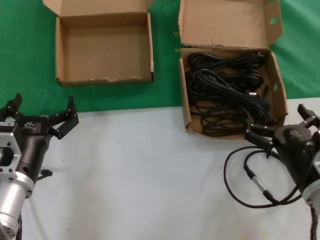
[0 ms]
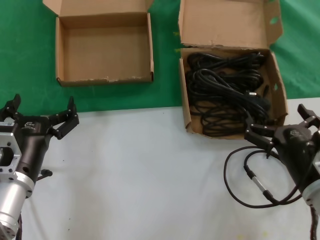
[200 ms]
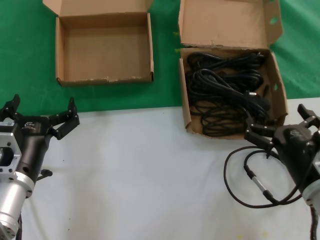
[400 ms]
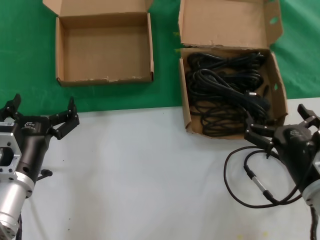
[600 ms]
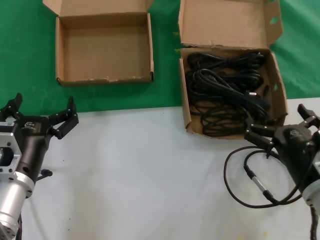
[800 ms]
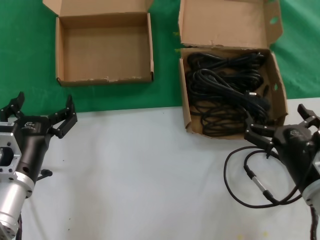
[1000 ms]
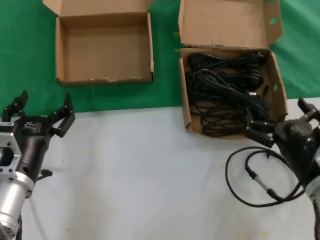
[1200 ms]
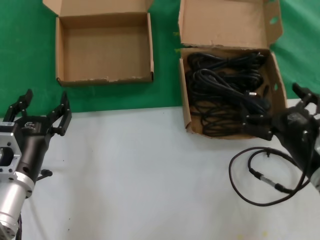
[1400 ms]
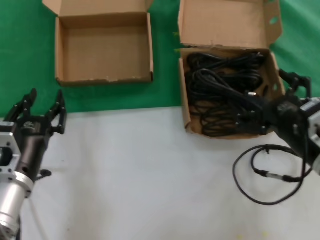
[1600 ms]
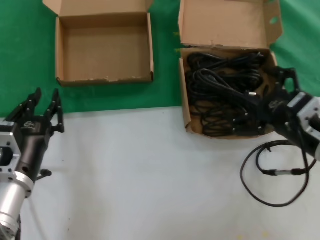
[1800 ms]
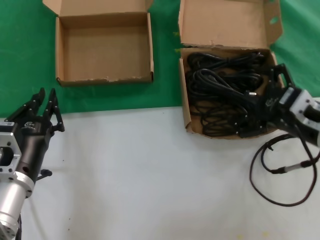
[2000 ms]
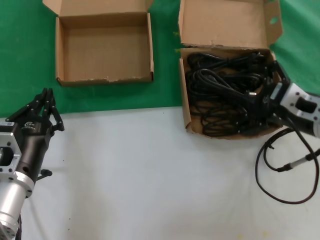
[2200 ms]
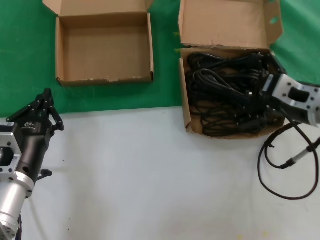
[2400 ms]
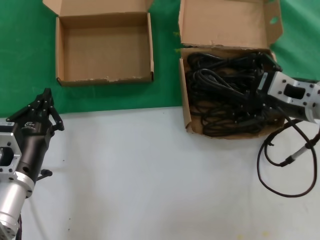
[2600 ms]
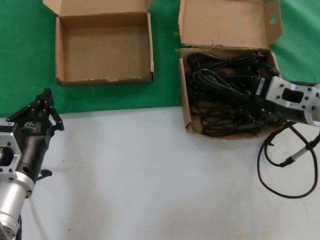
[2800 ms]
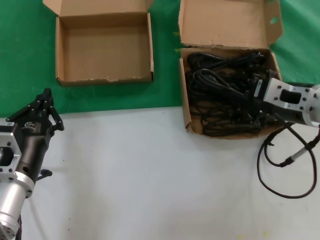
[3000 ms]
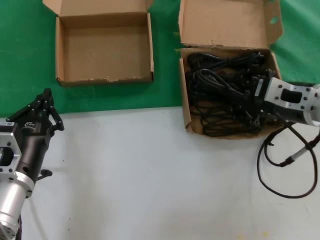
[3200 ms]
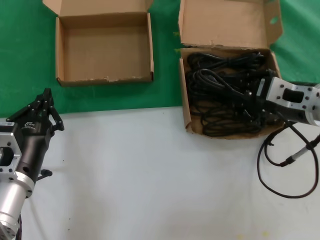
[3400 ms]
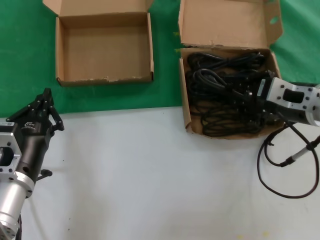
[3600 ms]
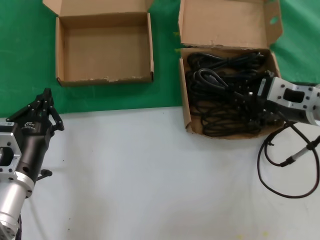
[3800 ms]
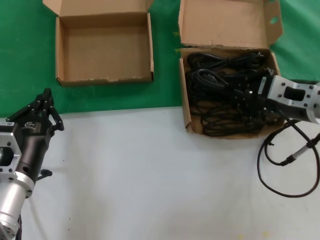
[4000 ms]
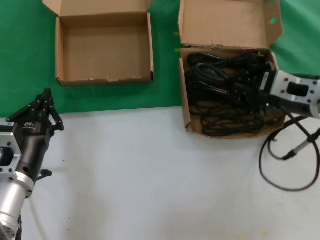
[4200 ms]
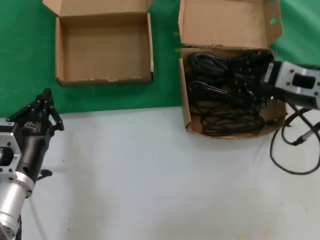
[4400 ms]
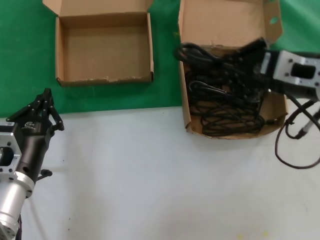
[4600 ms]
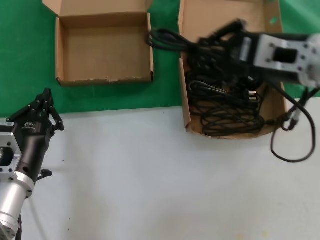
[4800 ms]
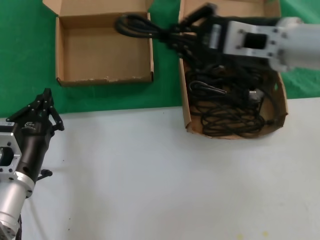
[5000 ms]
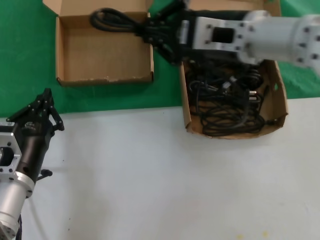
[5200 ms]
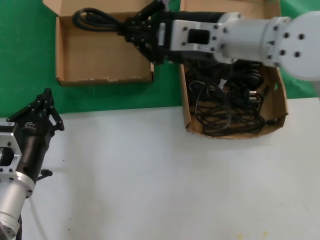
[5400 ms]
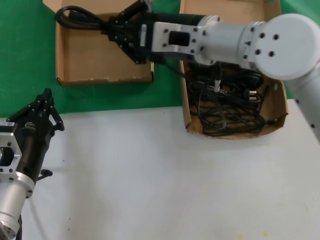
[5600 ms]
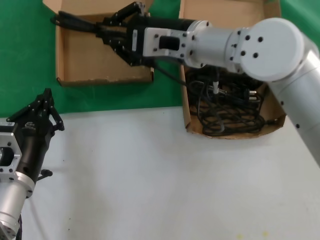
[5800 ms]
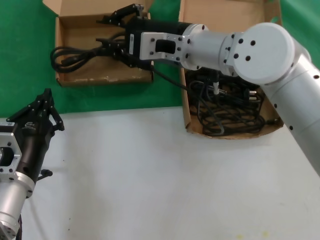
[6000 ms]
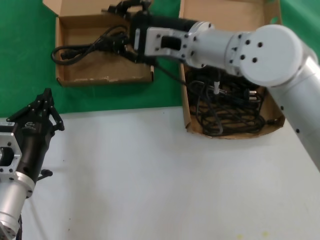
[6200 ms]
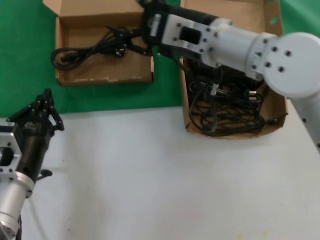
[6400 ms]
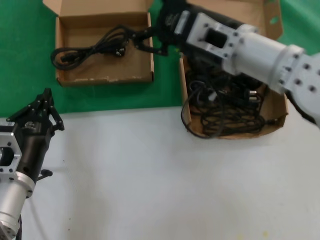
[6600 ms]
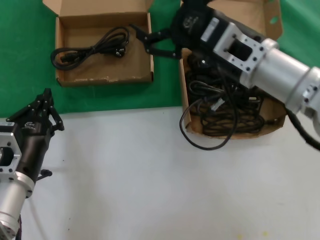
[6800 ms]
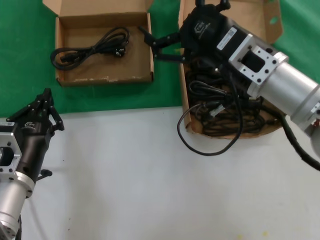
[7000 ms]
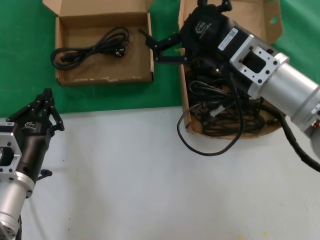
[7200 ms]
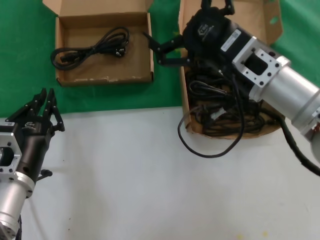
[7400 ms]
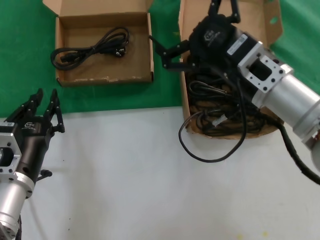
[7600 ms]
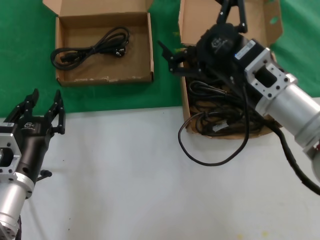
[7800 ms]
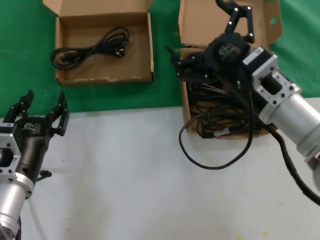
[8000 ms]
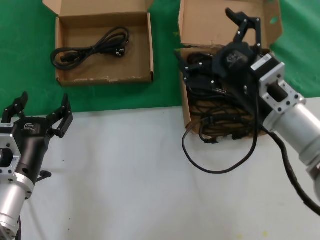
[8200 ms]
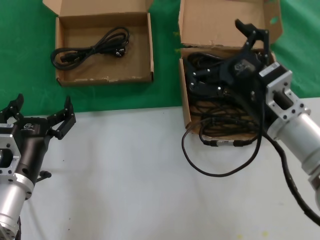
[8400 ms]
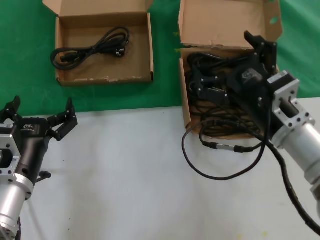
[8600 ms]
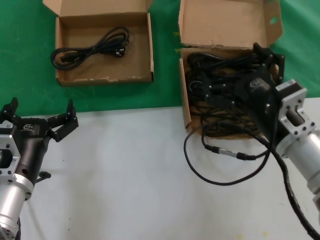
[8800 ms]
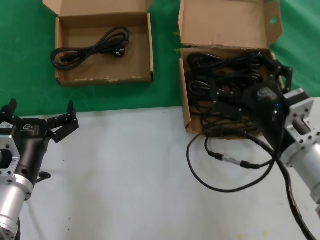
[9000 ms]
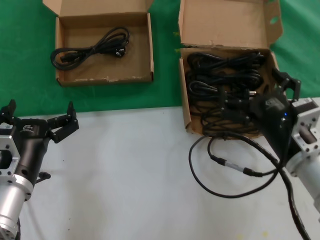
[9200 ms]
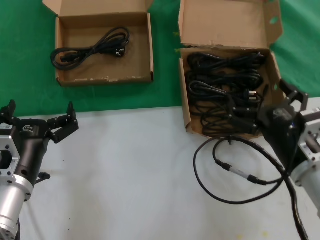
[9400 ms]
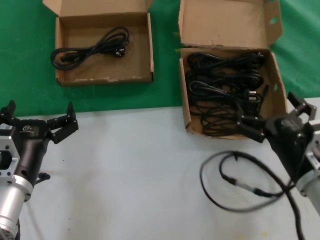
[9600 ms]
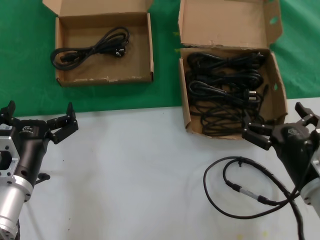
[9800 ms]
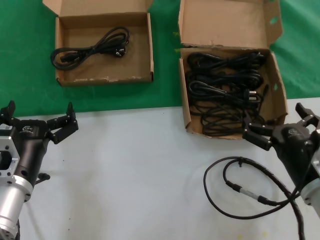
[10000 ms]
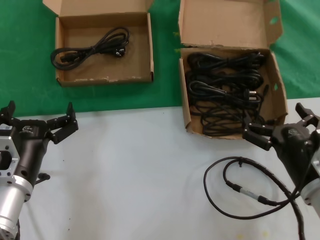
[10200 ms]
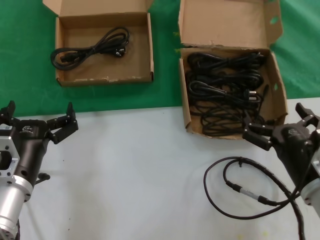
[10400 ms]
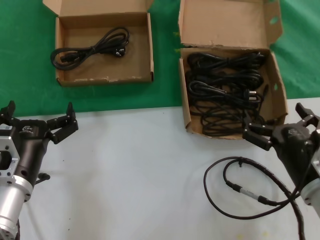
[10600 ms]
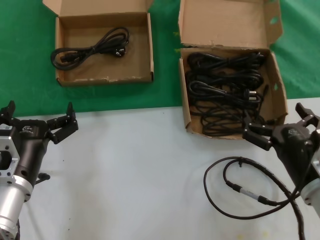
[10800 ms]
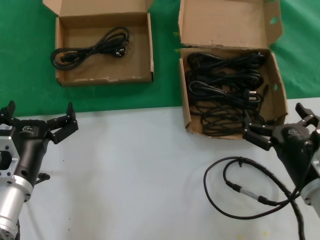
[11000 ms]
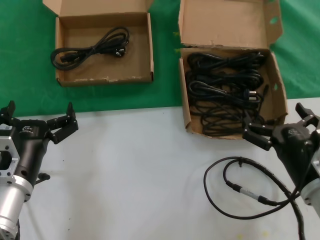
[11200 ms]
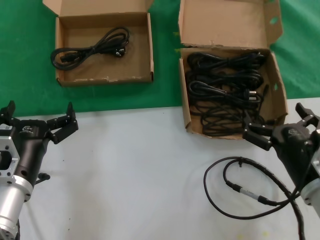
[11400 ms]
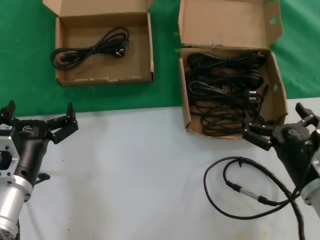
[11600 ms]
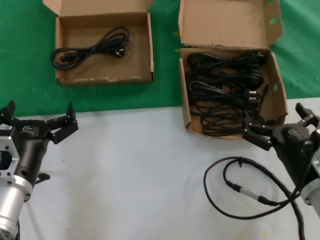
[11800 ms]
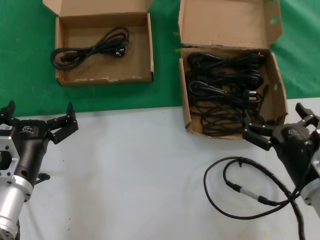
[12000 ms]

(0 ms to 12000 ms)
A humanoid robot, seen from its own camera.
Task of the whole recording: take the parts from the box containing them and put them into an empty box.
Step, 0 ms - 3600 ms: Grasp the data cable.
Step, 3800 ms - 6000 ms: Place the data cable in the another box.
0 ms - 1600 ms: The right hand heads upward, covering some 5 cm.
1600 ms - 3000 ms: The right hand moves upward and forward, approximately 15 cm.
3000 ms - 4400 ms: The hands move only a little.
4400 ms - 6000 ms: The right hand shifts some 20 cm to the left and forward.
6000 ms - 7600 ms: The right hand heads to the right, backward and downward, covering some 15 cm.
7600 ms - 9000 ms: The right hand is displaced downward by roughly 10 cm.
9000 ms - 10400 ms: The right hand is displaced downward by about 5 cm.
10400 ms - 12000 ms: Neither hand changes place.

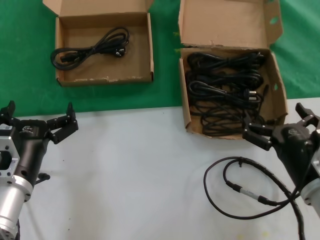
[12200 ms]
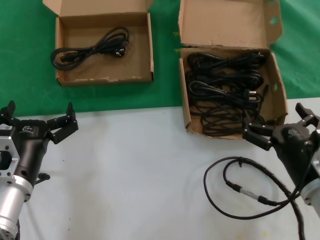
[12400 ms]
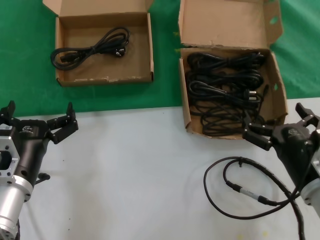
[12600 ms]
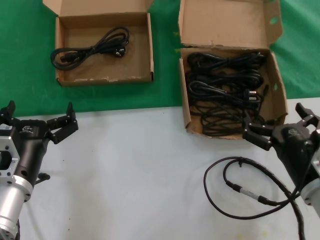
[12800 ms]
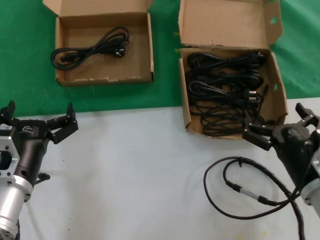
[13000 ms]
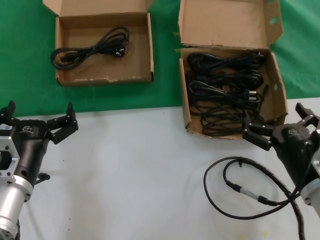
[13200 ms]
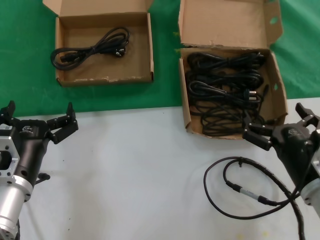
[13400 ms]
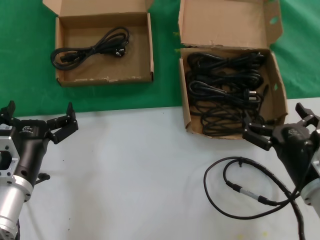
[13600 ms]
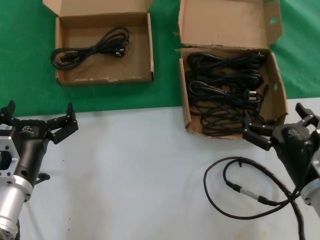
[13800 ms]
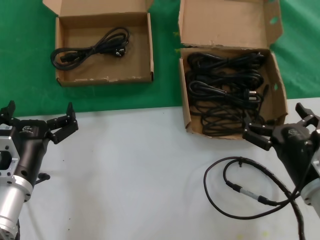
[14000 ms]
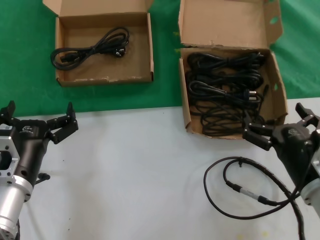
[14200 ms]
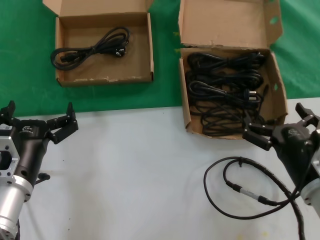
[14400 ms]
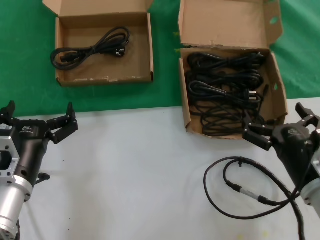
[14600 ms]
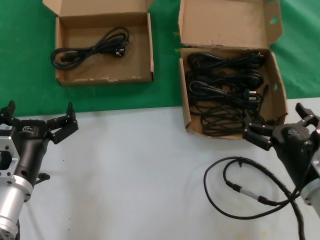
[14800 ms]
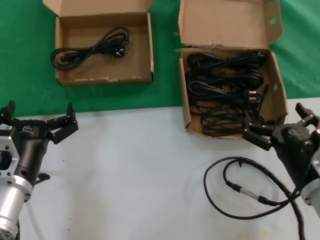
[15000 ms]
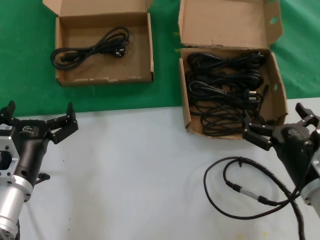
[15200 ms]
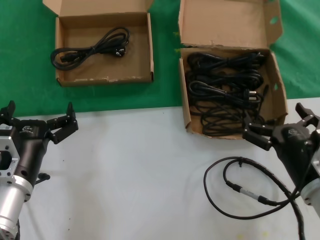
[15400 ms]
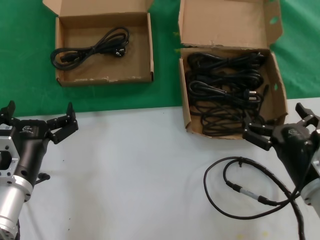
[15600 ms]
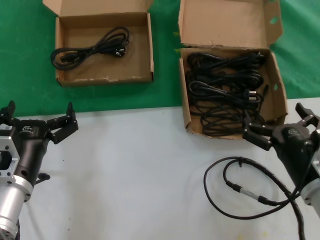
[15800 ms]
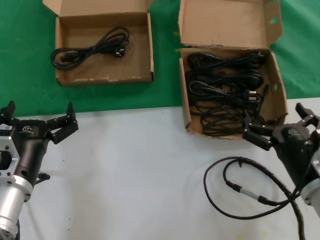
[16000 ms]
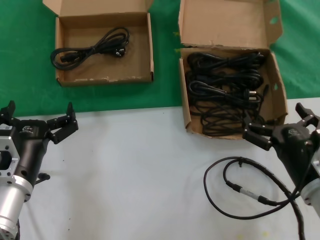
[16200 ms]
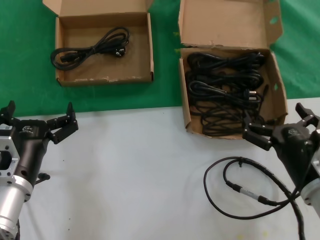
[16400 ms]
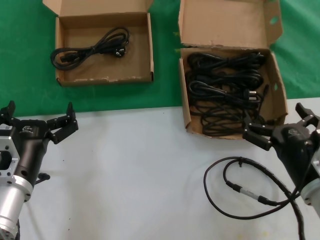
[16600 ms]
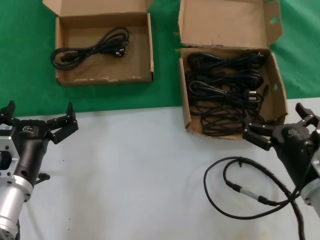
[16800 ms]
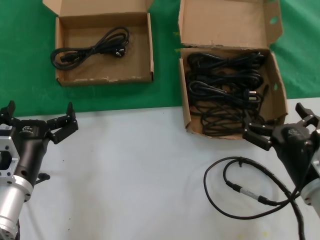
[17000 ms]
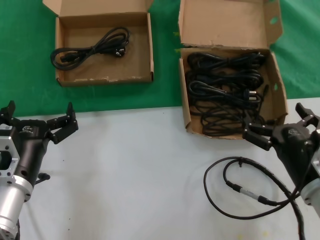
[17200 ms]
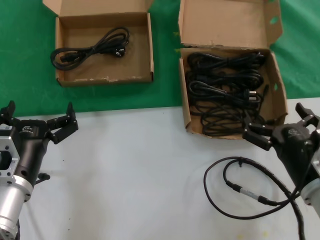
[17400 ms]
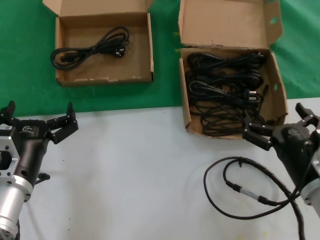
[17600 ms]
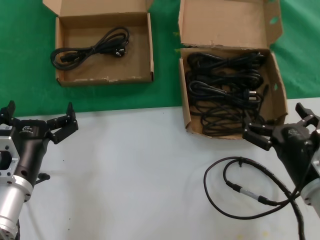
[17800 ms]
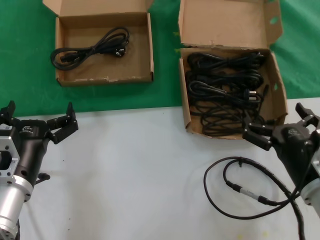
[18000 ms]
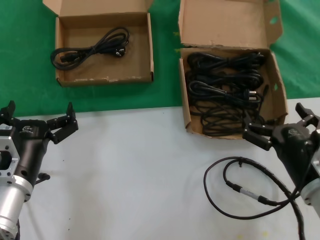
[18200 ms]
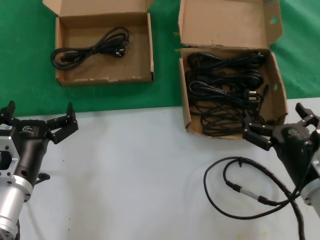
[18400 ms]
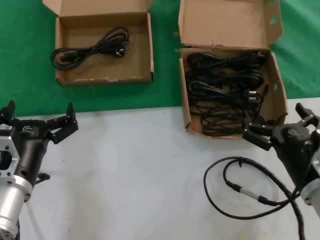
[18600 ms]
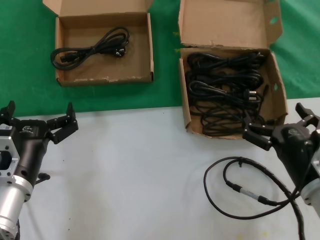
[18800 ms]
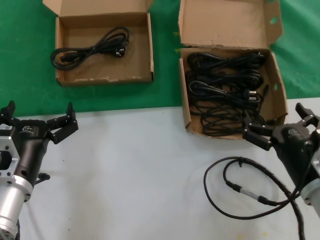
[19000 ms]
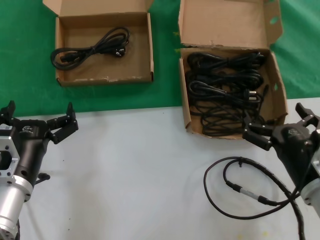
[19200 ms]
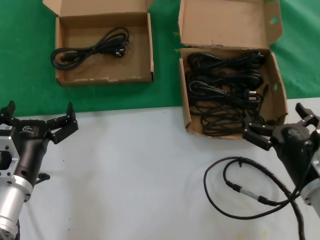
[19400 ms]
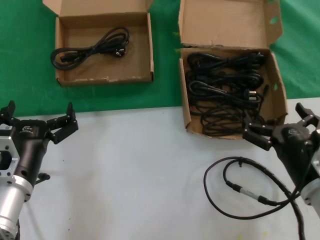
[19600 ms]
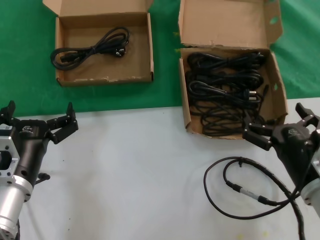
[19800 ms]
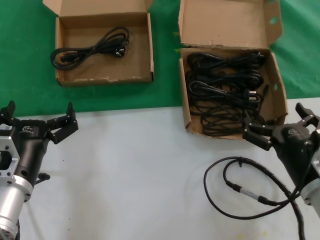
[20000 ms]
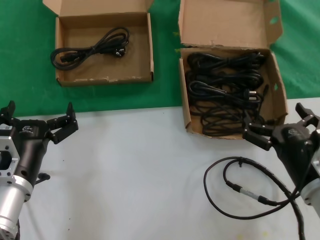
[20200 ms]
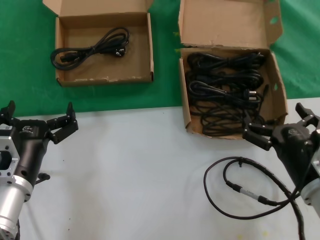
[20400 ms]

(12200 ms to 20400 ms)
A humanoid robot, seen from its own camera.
Task of the whole recording: take the parts from the box containing them and put them into an empty box.
12200 ms - 20400 ms: Neither hand changes place.

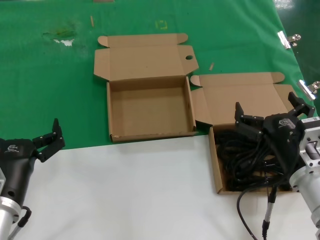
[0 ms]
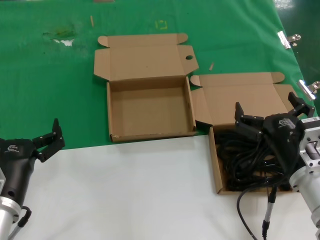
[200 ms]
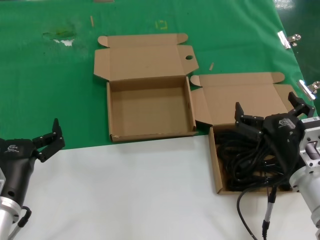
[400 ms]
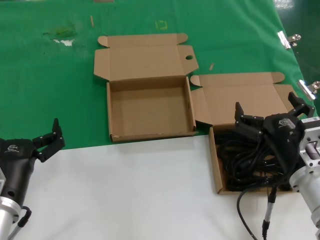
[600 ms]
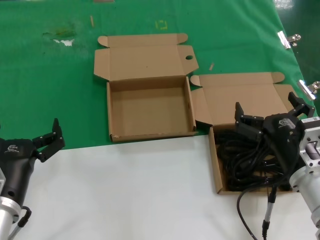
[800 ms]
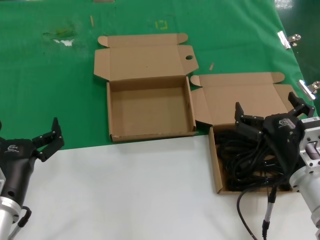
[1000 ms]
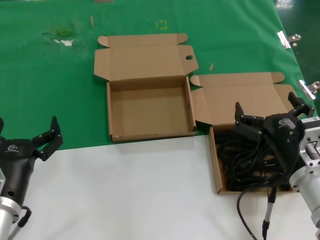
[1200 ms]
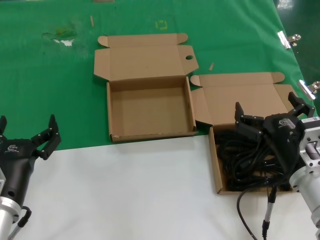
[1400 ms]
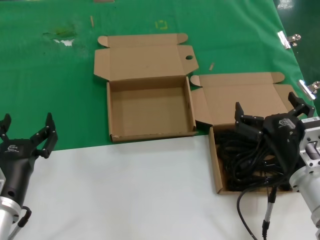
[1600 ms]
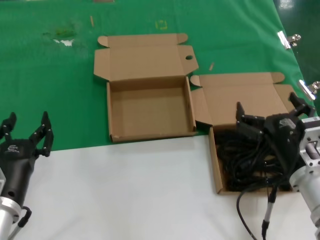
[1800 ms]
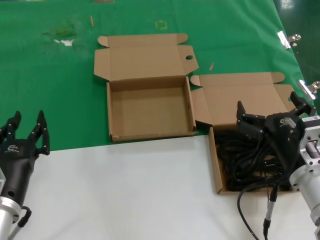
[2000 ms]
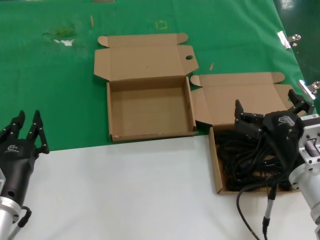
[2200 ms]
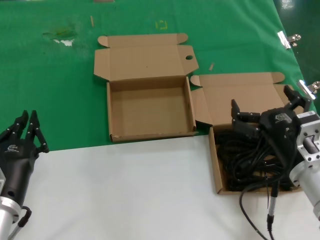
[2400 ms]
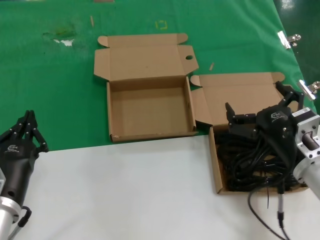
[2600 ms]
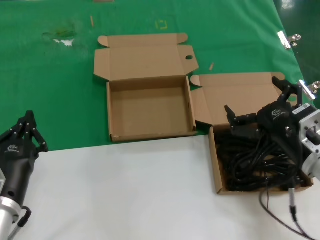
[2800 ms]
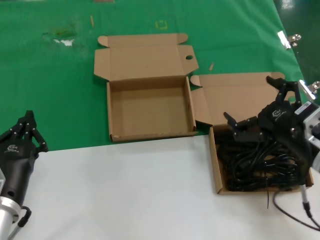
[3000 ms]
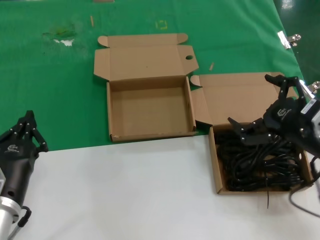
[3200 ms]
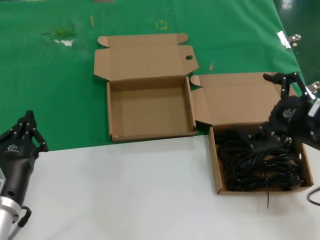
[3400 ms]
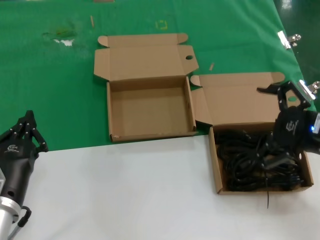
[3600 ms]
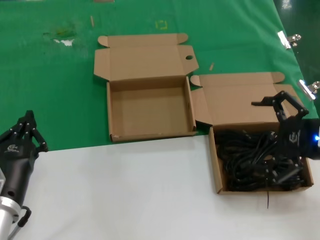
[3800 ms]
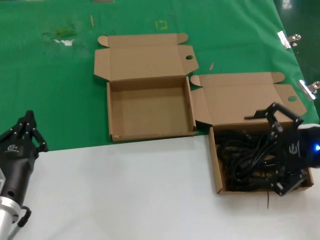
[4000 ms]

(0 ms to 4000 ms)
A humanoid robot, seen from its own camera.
Task of the whole recording: take the parts from the box containing them and put them into an empty box.
0 ms - 1400 ms: Neither hand changes place.
1400 ms - 2600 ms: There are only small adjustments of the hands.
2600 ms - 4000 ms: The right hand is displaced upward and to the right by about 15 cm.
